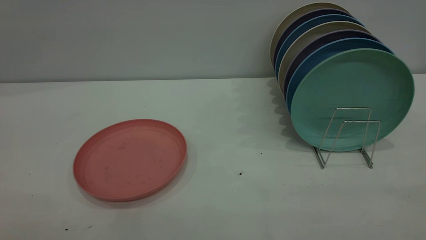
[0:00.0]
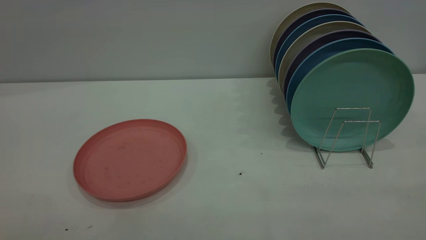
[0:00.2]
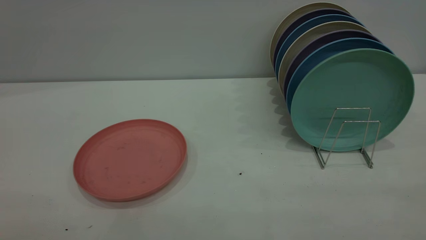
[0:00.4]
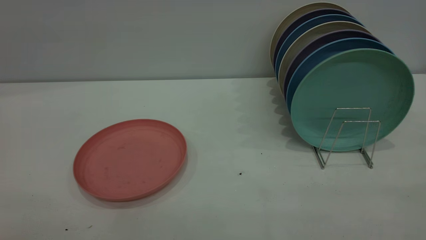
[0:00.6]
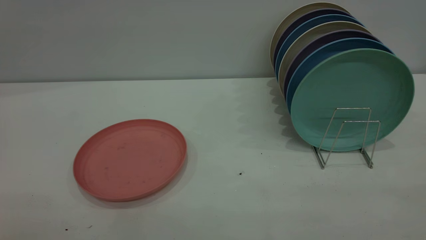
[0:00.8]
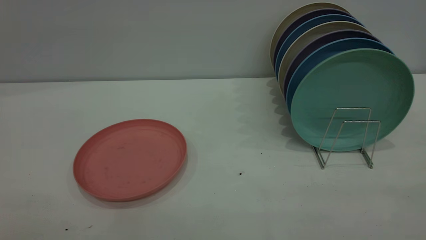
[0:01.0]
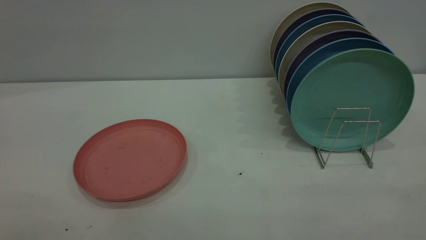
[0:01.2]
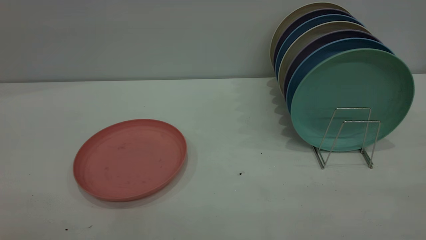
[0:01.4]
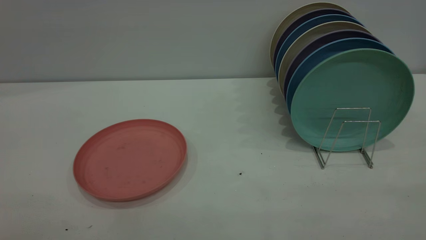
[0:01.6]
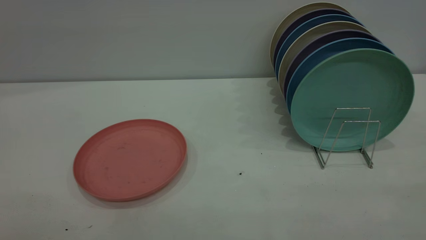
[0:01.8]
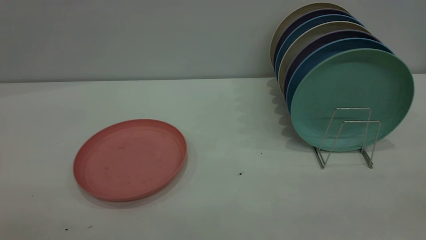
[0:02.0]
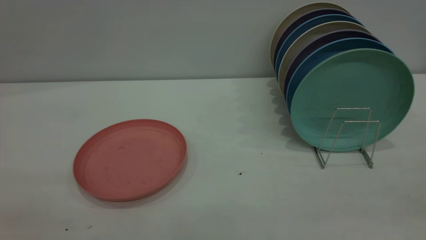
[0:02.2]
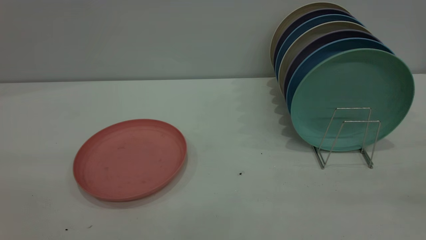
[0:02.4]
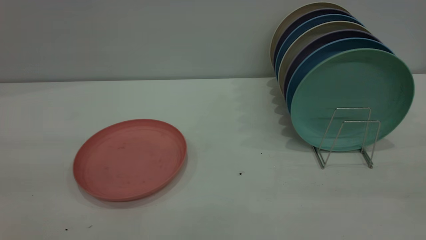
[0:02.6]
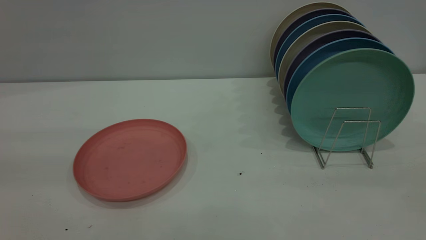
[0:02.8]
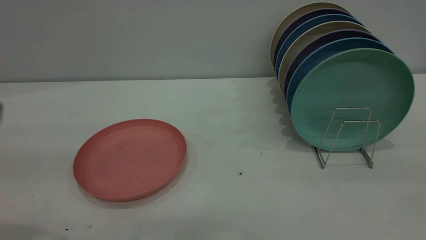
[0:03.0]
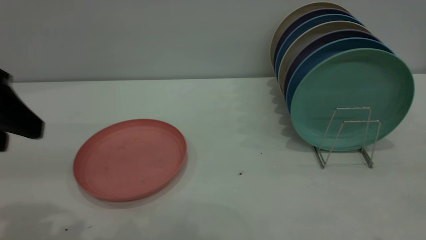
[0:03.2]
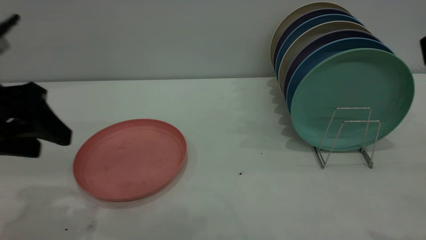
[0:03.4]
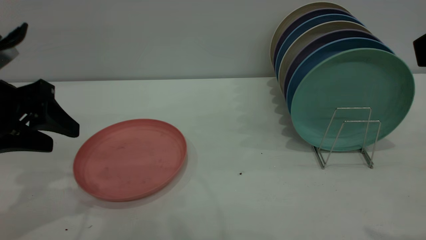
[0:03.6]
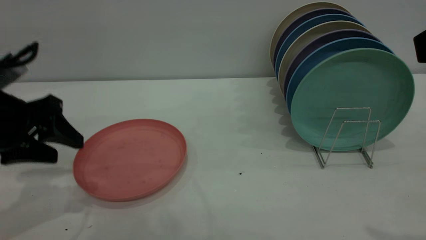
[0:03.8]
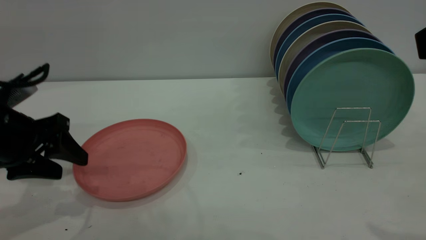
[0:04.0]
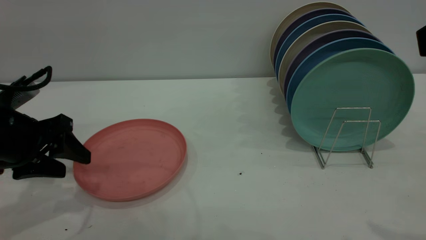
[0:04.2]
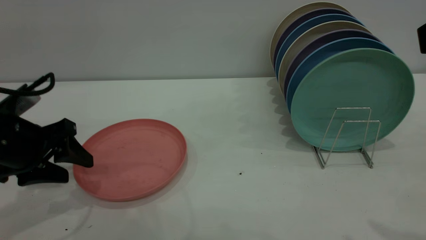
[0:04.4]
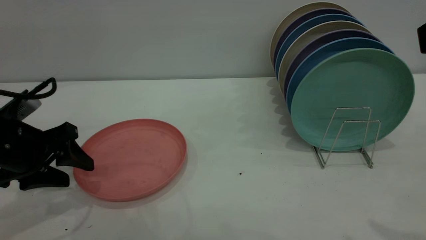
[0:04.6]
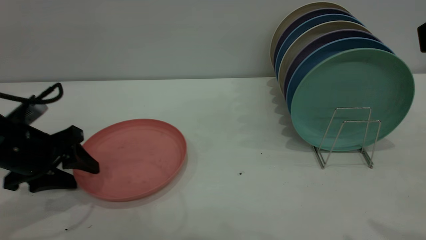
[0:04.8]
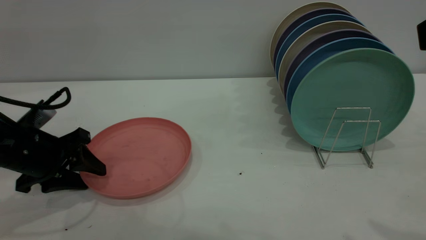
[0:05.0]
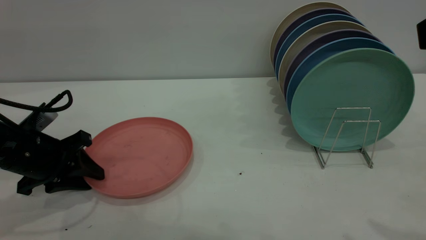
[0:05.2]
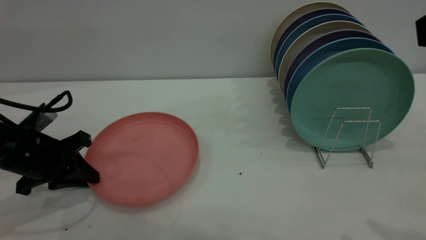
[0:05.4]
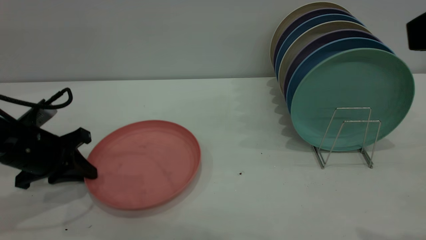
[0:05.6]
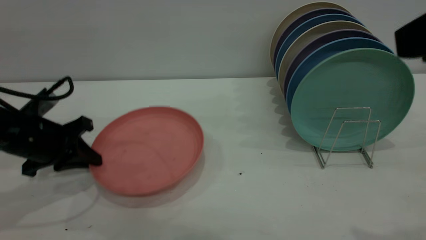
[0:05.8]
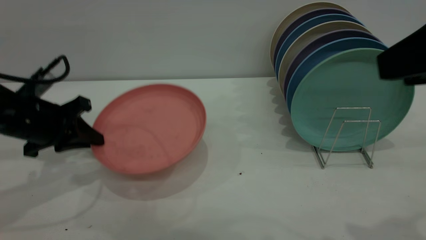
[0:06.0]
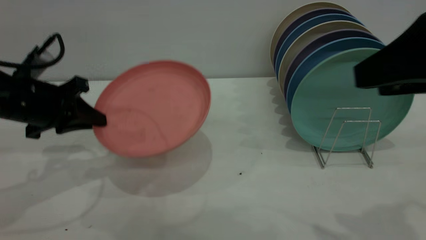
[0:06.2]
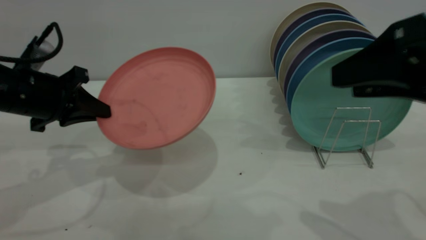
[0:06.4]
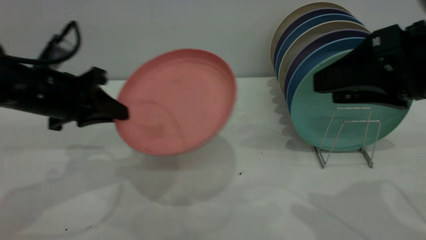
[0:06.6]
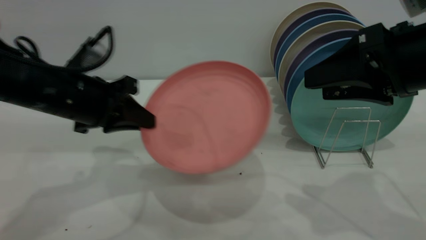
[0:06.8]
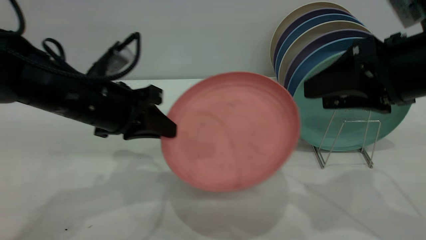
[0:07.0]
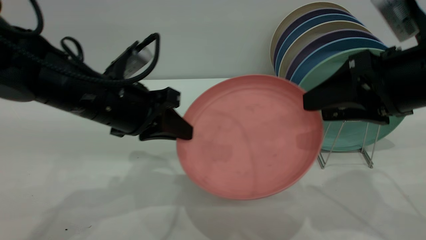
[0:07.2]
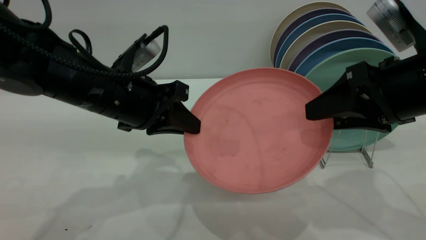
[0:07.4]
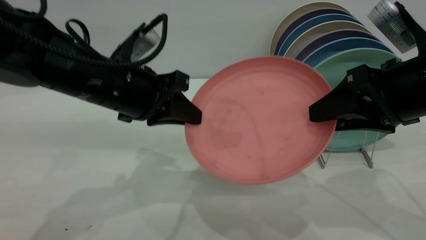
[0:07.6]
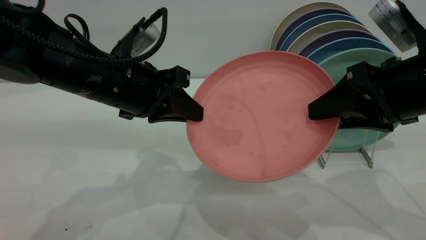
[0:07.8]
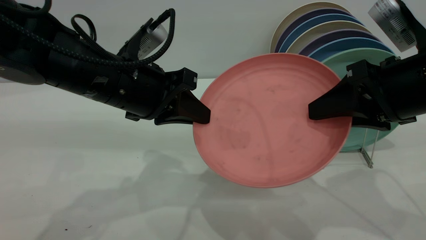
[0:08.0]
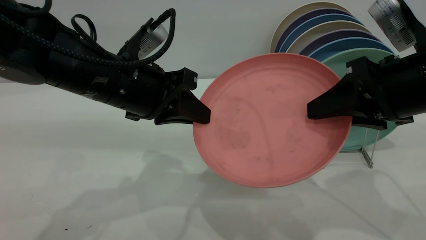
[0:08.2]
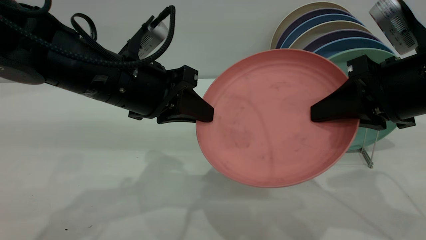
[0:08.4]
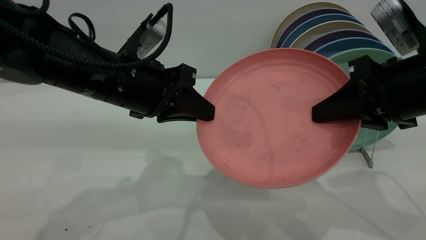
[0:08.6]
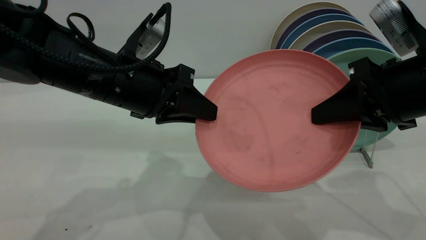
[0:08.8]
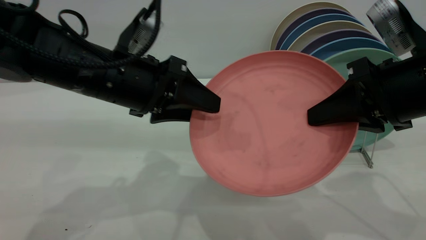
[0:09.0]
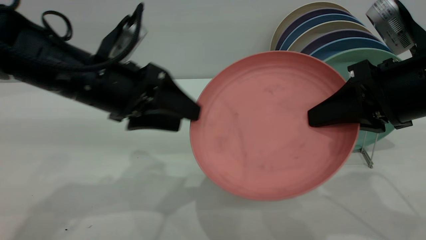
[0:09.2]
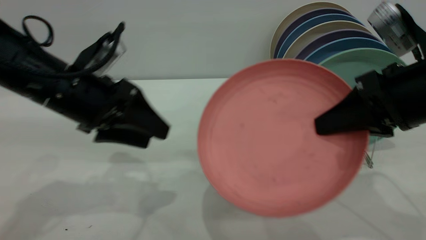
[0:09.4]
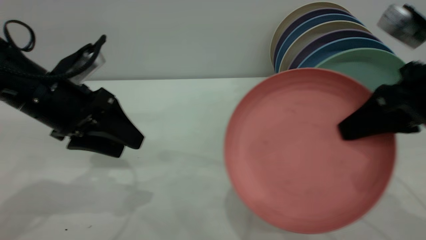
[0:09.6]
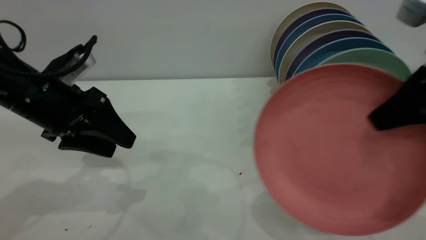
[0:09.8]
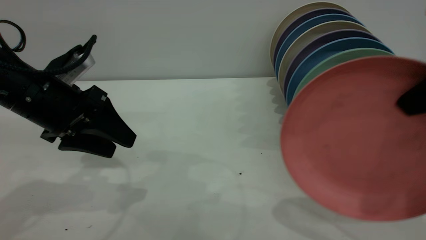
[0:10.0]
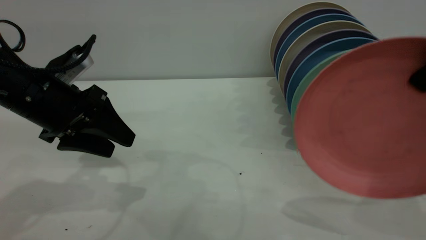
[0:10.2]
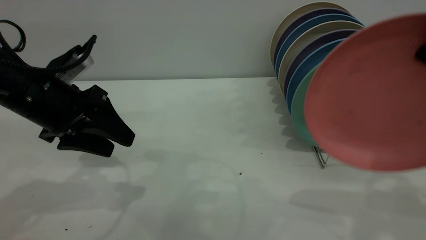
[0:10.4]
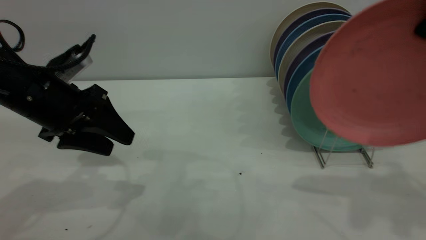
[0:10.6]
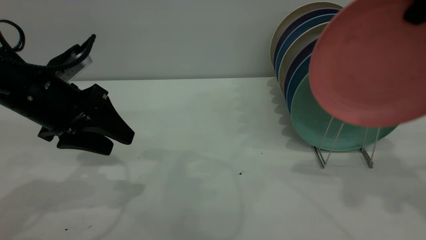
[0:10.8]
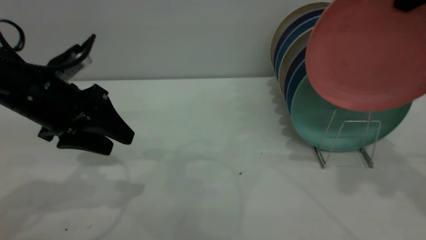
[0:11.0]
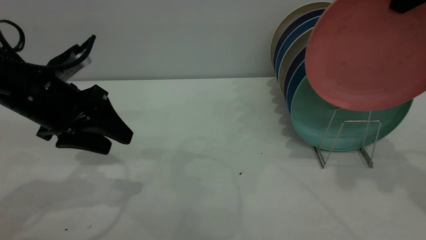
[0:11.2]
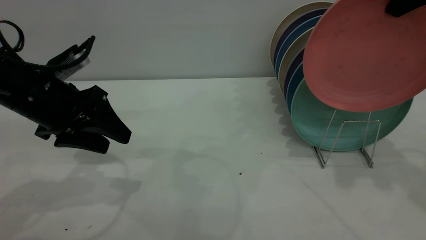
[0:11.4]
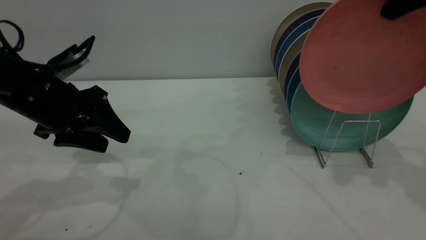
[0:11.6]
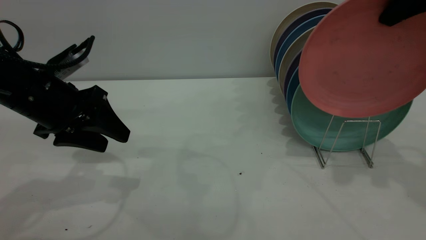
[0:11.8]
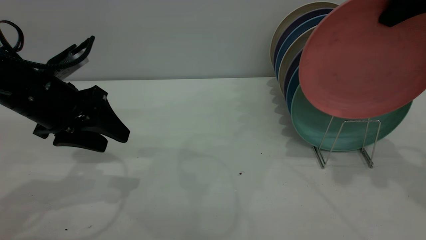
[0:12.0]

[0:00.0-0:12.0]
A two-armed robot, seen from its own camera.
Task of the whole recording: the left gripper grasp the pink plate, the left gripper pass the pink plate to the right gripper, and the right gripper place the pink plate on the plate rack.
Step, 0:00.0 to 0:06.0: Pick up the plate with the left gripper.
Step, 0:06.2 to 0:09.2: Pass the plate from the left gripper to the right gripper.
0:00.0 to 0:01.6: Neither gripper changes place.
0:03.0 to 0:04.4: The left gripper travels downward and forward by roughly 20 cm.
0:04.4 to 0:06.0: The left gripper closes its fingers.
0:06.0 to 0:07.6: The right gripper is displaced downward and forward by roughly 15 cm; the left gripper goes approximately 15 cm to the right.
0:07.6 to 0:09.0: The left gripper opens its fingers, while the right gripper closes its fingers.
0:09.0 to 0:10.4: The right gripper travels upward by roughly 15 cm. The left gripper heads to the left, covering approximately 10 cm.
0:10.4 to 0:12.0: The right gripper goes roughly 10 cm forward.

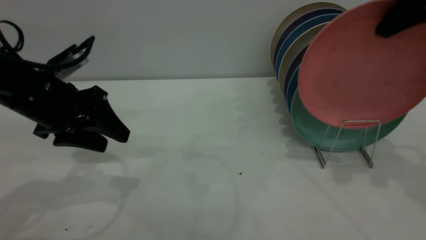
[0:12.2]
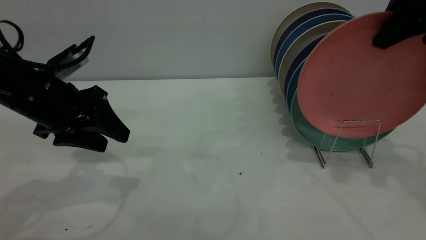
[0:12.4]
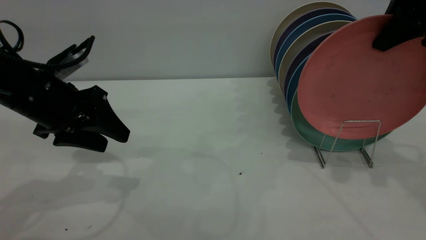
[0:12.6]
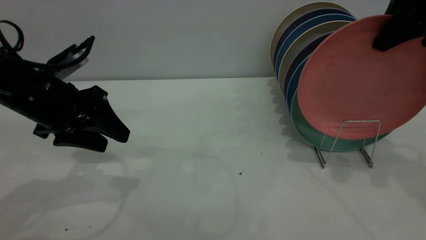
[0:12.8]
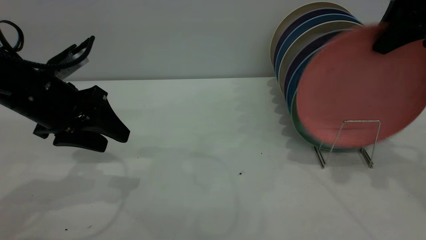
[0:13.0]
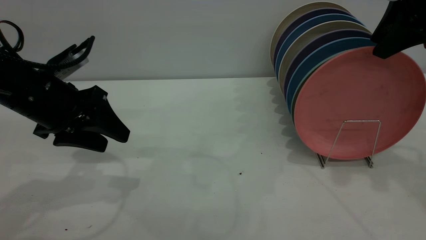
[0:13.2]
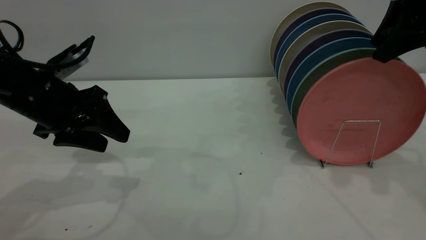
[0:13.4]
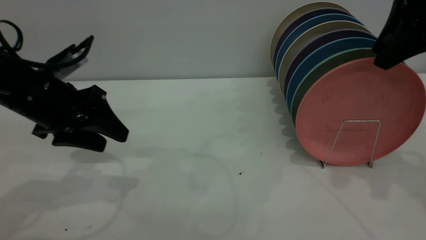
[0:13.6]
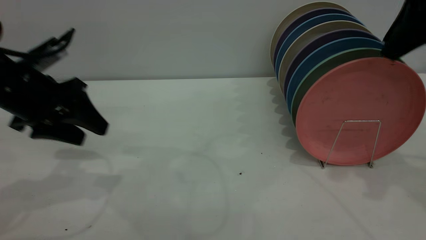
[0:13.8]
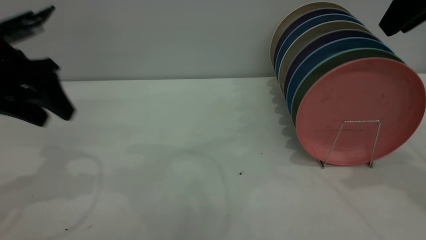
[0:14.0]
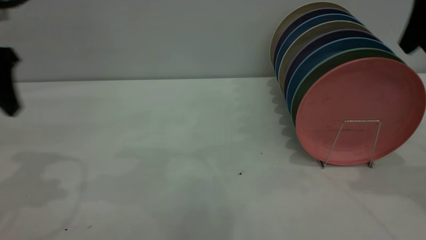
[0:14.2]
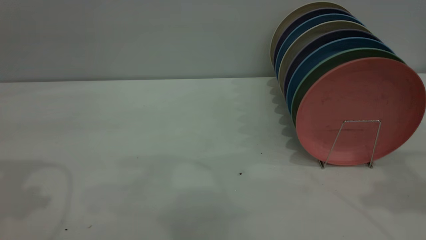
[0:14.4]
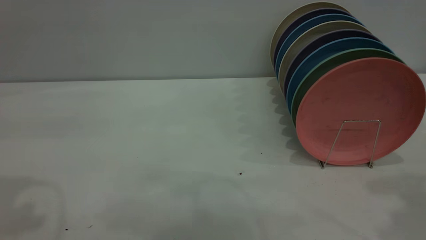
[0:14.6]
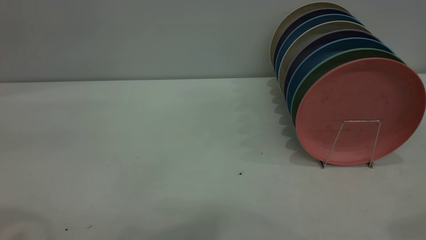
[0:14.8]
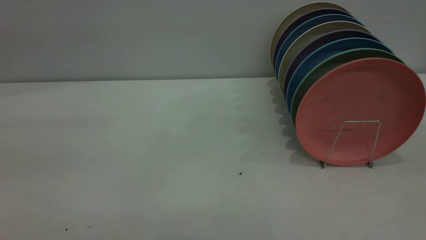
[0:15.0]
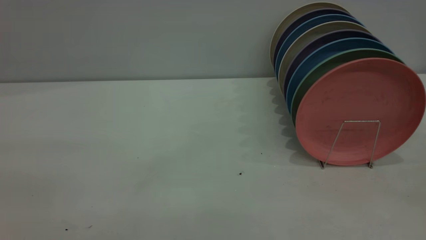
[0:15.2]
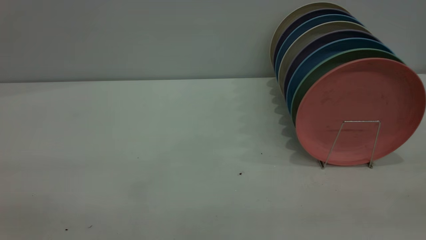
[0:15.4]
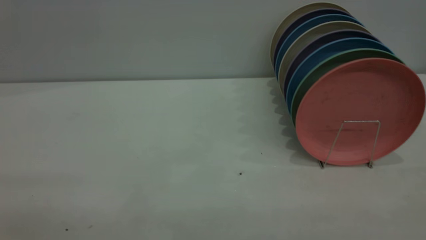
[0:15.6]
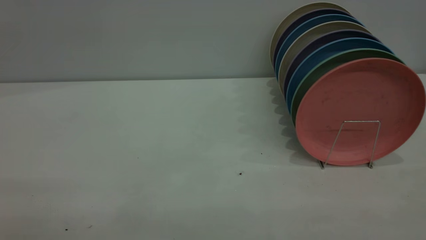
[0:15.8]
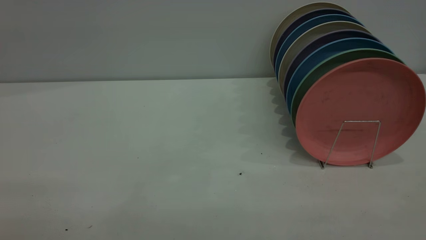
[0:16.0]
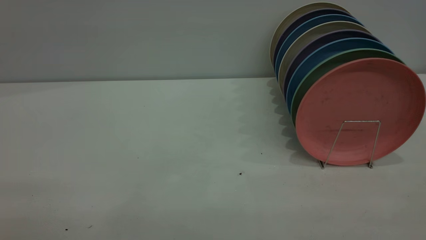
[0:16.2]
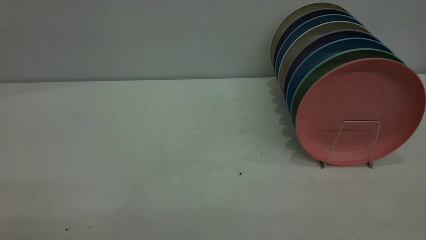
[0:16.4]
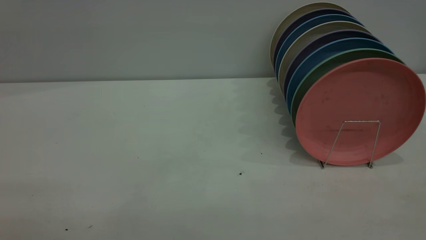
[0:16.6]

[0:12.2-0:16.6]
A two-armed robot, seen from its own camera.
Task of the whole recording: the left gripper grasp the pink plate, the left gripper pass the pink plate to the right gripper, and the right gripper place the pink plate on the plate rack.
0:12.2 to 0:13.6: The right gripper opens its fingers.
0:13.6 to 0:15.2: The right gripper heads backward, covering some 30 cm, and opens up. The left gripper is displaced backward and upward by about 30 cm.
